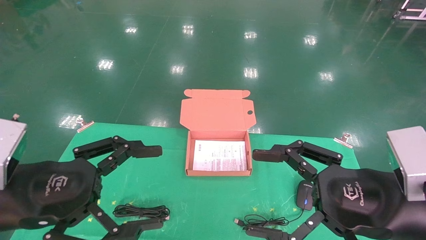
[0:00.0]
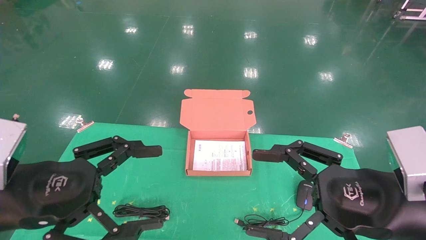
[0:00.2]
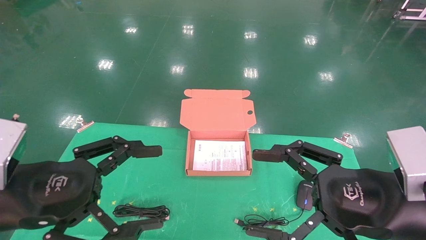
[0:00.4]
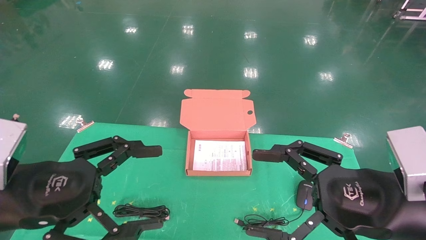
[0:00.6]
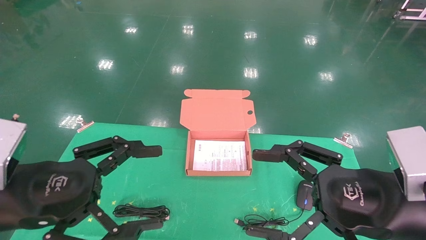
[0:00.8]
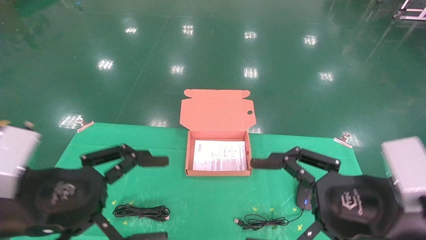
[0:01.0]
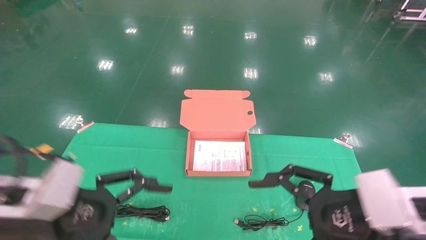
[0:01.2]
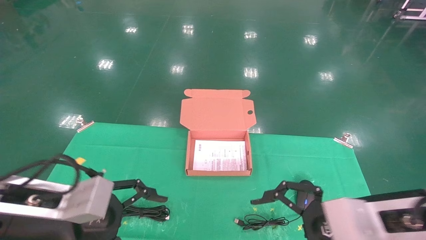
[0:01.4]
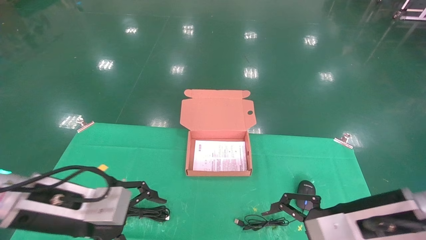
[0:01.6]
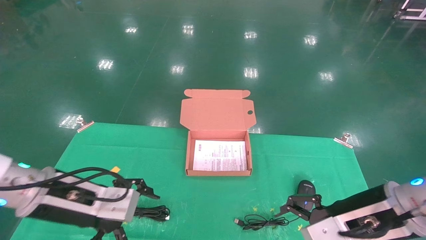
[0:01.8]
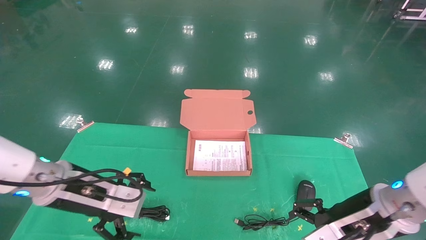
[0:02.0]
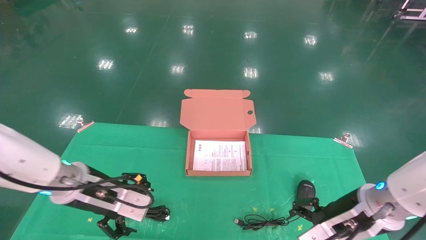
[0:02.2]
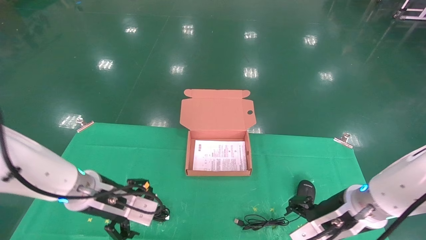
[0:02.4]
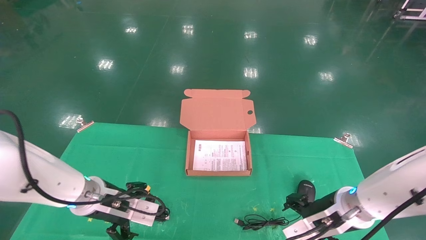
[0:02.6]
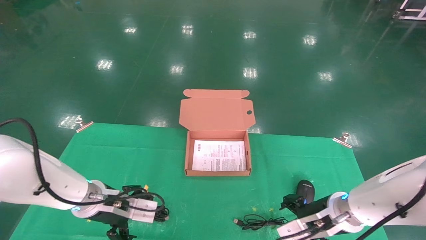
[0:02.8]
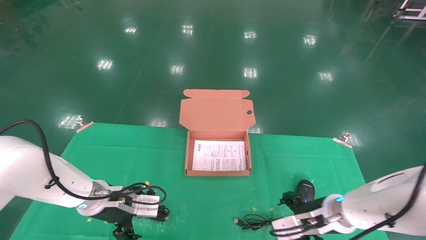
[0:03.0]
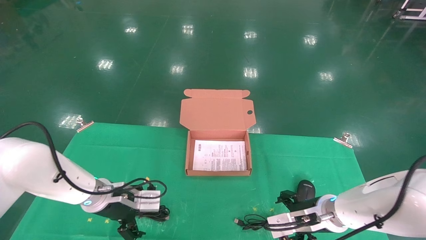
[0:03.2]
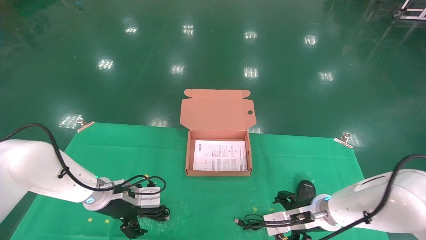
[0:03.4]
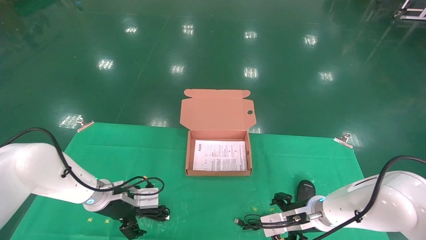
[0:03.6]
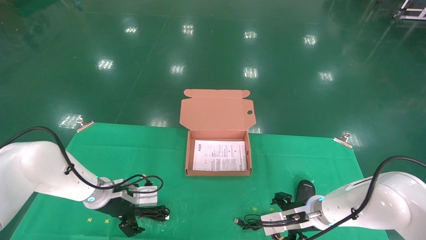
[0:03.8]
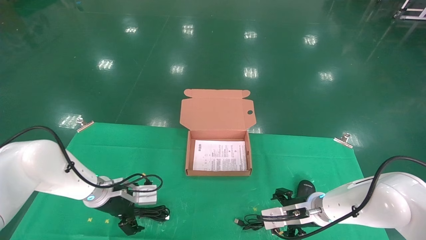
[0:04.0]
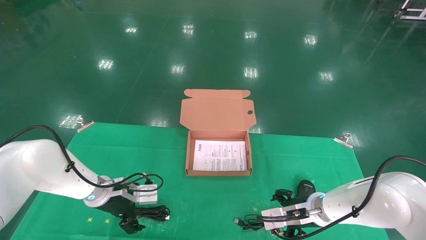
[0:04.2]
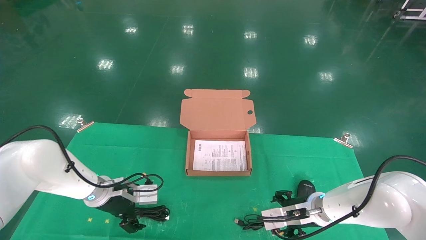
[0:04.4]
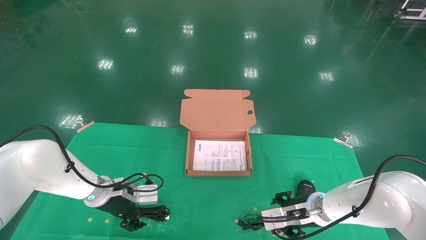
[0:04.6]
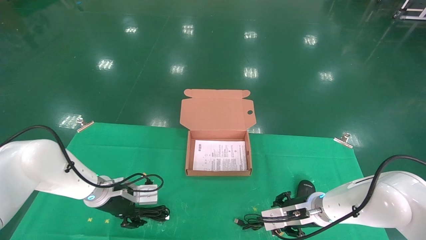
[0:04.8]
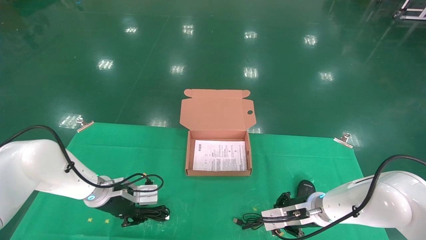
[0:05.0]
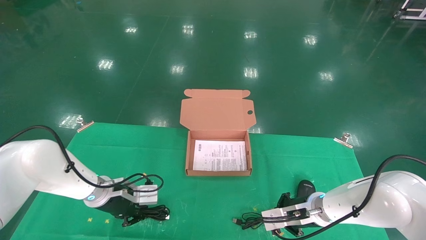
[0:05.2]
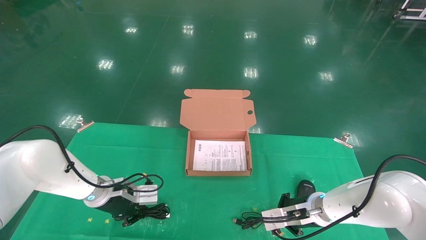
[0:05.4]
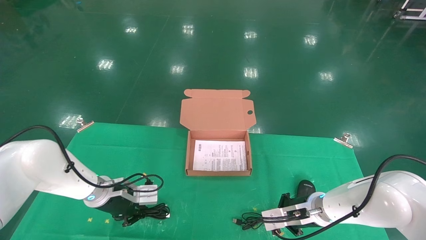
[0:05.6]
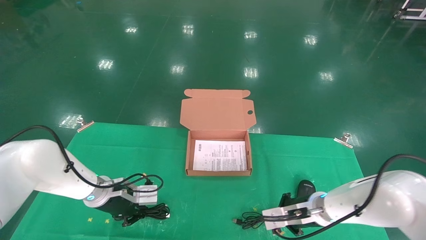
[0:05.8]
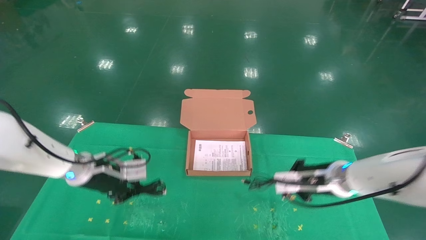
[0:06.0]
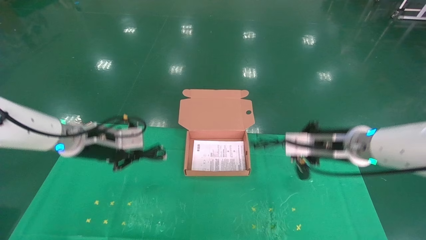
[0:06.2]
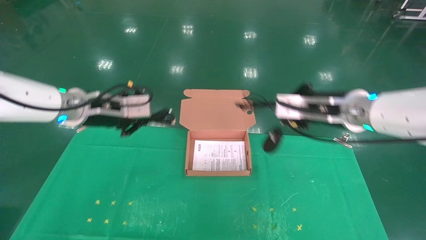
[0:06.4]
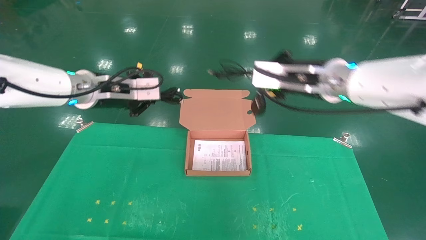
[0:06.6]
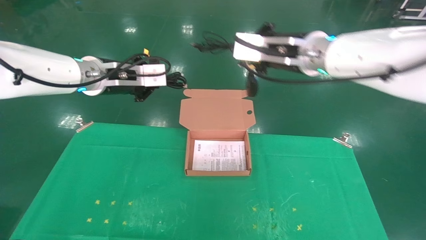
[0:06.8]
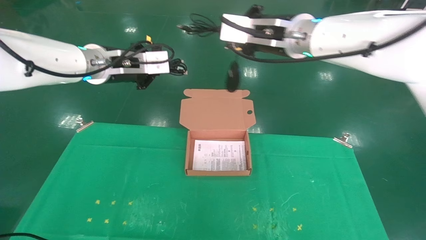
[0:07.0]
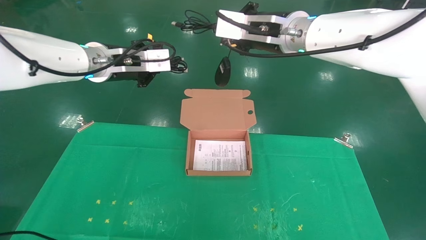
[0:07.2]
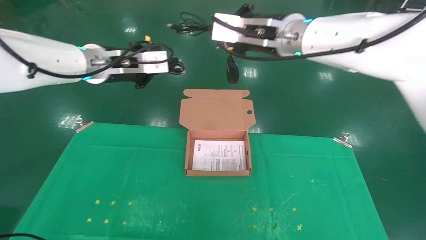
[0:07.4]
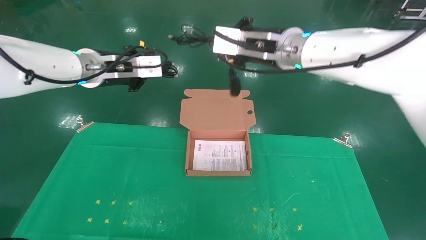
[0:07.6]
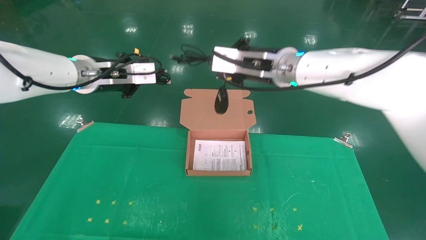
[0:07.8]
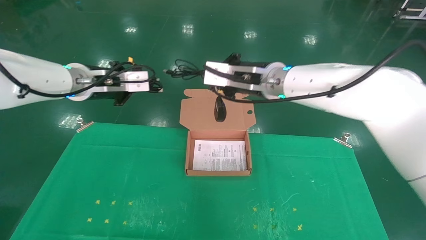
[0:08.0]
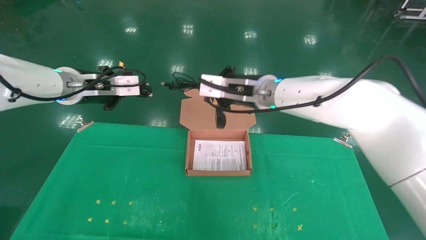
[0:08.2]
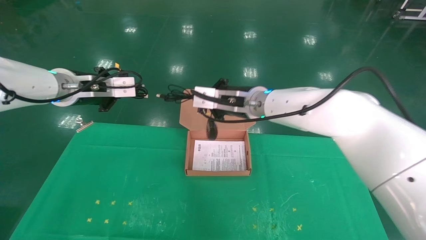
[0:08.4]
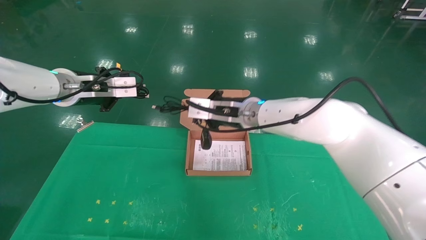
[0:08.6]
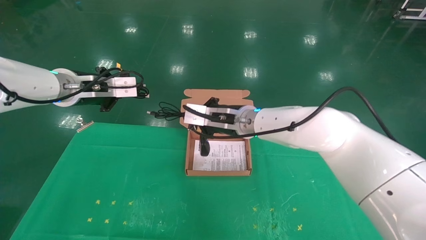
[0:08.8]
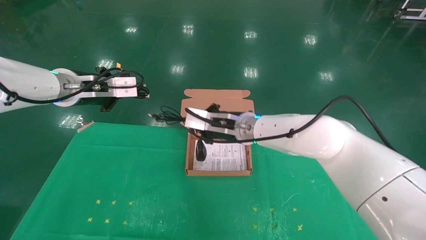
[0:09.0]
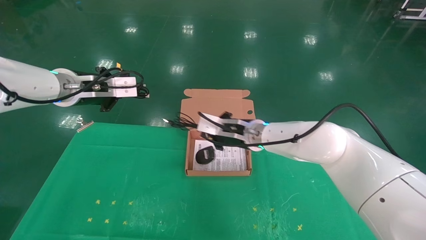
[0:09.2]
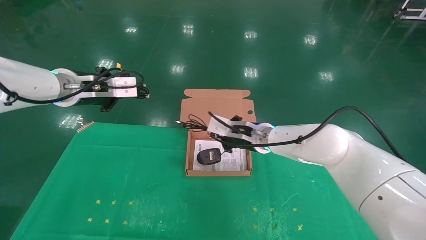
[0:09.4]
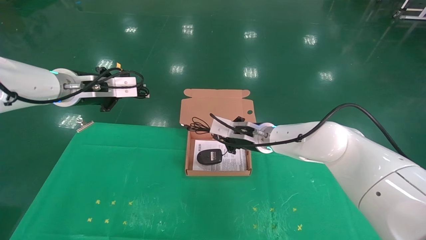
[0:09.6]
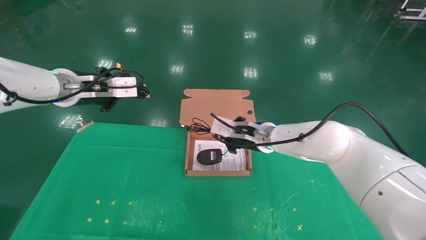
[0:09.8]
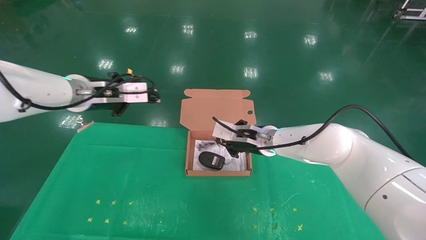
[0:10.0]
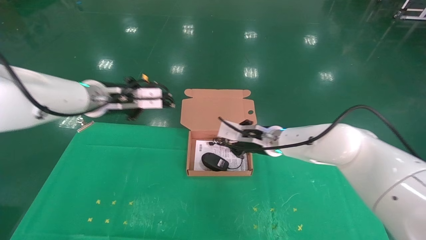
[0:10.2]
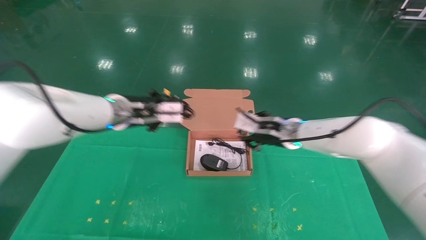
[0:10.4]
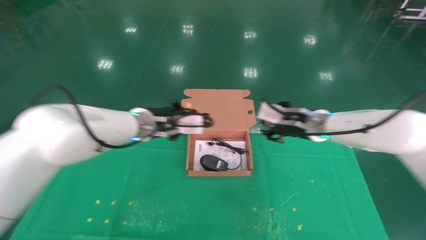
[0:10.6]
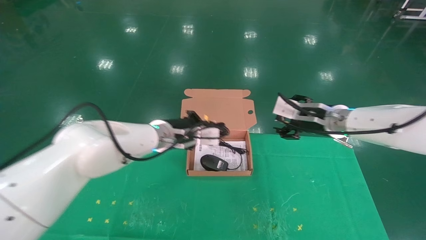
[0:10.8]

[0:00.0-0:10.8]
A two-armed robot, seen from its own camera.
Task of the whole recording: grasp data cable left put into box grasp mouse right put into box.
Step, 0:01.0 to 0:05.4: Grab and pick up both the mouse and power cord from the accessory packaging area at the same time.
0:00.0 to 0:01.6: The left gripper is displaced forward by about 5 cm. The right gripper changes place by about 5 cm.
0:01.6 to 0:03.0: Both grippers move forward and downward, approximately 15 cm.
0:03.0 to 0:04.6: The right gripper shifts by approximately 5 cm. The left gripper changes place by some 5 cm.
0:04.6 to 0:06.2: The two grippers go about 15 cm upward. The right gripper closes its fingers; the left gripper closes up.
0:06.2 to 0:07.8: The right gripper goes roughly 20 cm to the left and upward. The left gripper is displaced upward by about 10 cm.
0:07.8 to 0:09.2: The right gripper moves downward, approximately 15 cm.
0:09.2 to 0:10.8: The right gripper travels to the right by approximately 15 cm, and opens its fingers. The left gripper heads to the right and downward, covering approximately 20 cm.

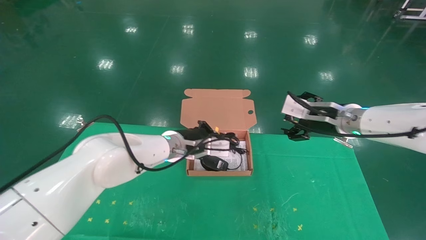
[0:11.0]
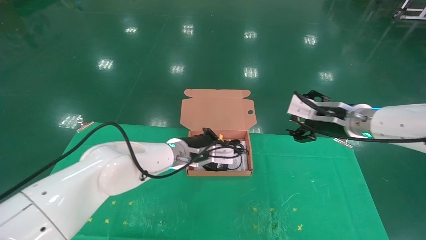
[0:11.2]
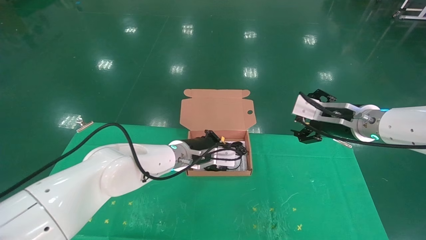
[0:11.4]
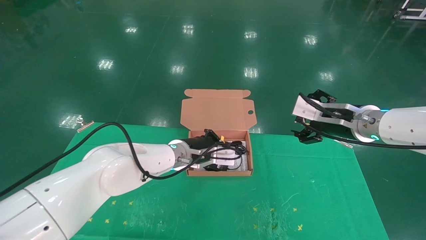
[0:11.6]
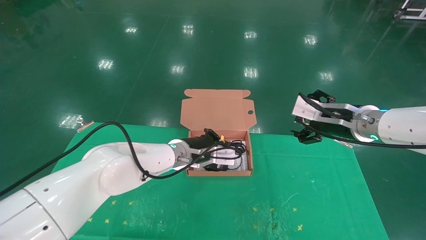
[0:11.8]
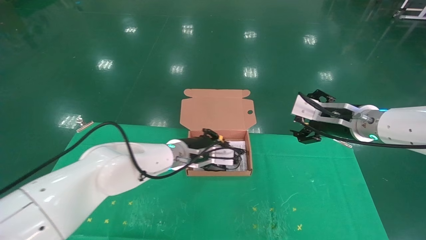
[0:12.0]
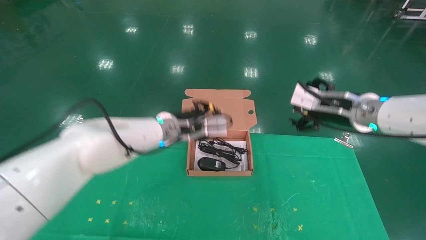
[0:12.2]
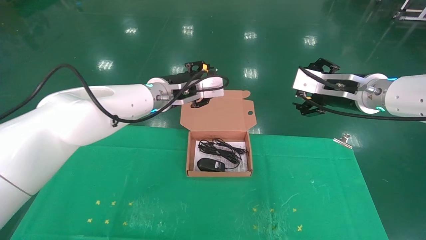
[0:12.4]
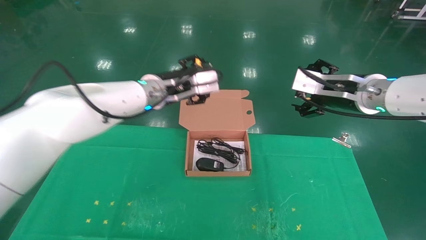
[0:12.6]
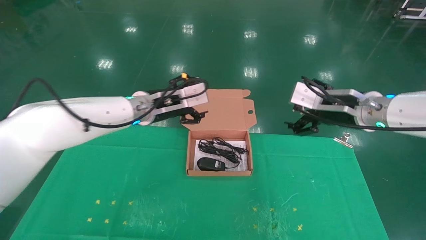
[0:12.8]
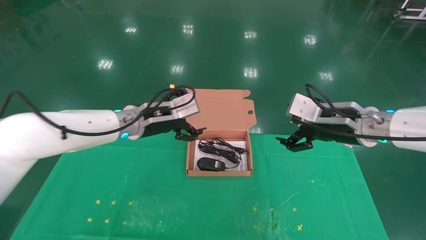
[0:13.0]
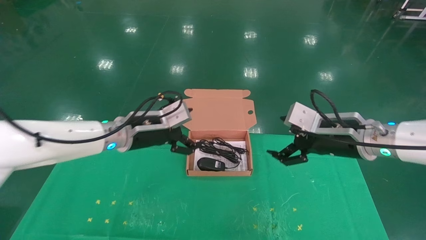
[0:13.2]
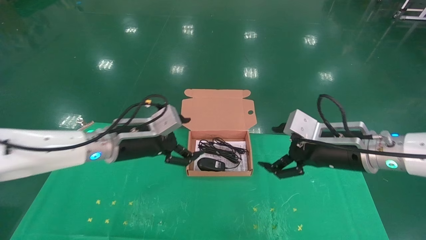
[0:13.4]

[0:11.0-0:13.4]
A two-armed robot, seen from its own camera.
Task of the whole recording: grasp data cable left put into box grasp mouse right put into box.
0:11.0 to 0:12.2: The left gripper shifts roughly 5 cm upward.
0:12.2 to 0:13.4: The left gripper goes about 10 cm to the left and backward, and opens. The right gripper moves downward and backward, approximately 10 cm.

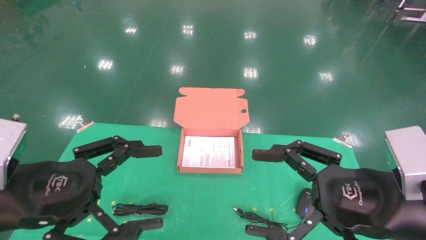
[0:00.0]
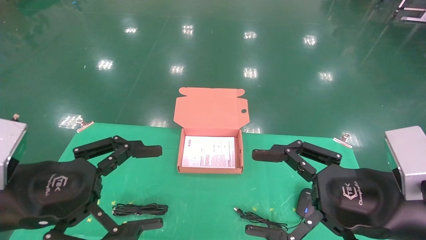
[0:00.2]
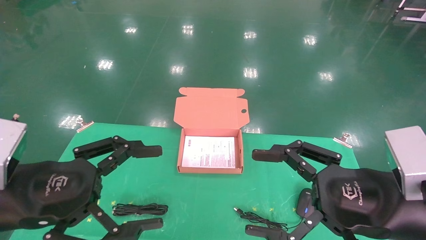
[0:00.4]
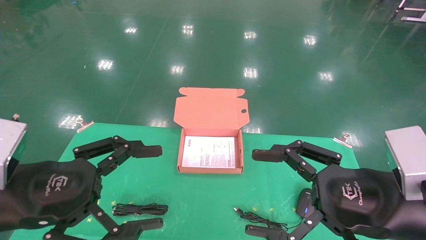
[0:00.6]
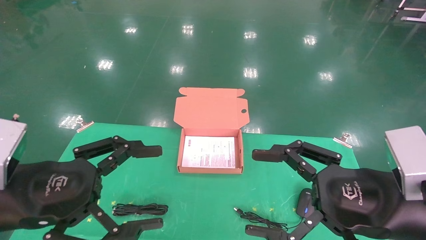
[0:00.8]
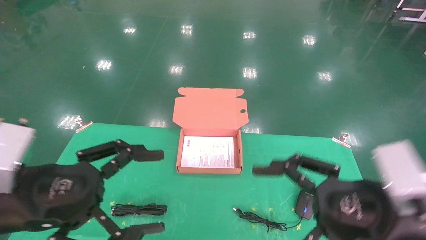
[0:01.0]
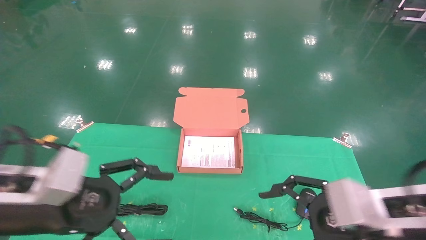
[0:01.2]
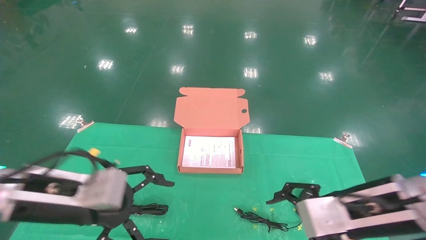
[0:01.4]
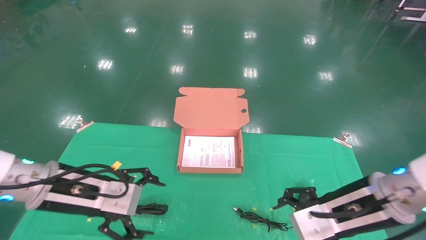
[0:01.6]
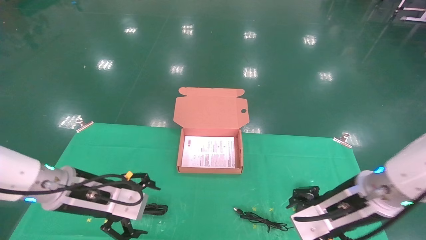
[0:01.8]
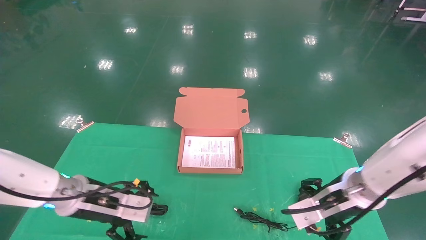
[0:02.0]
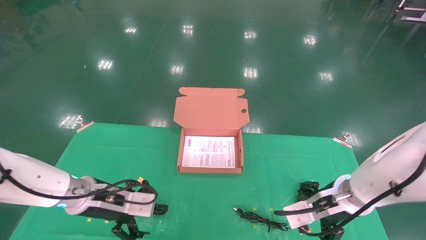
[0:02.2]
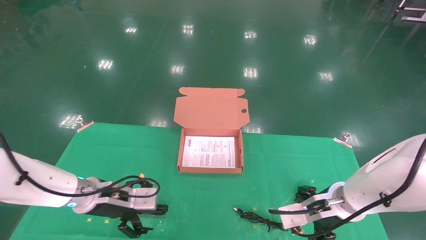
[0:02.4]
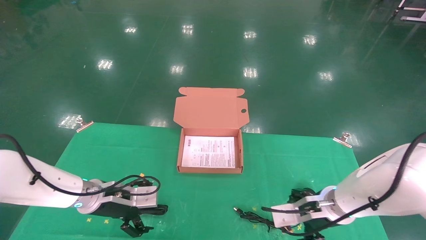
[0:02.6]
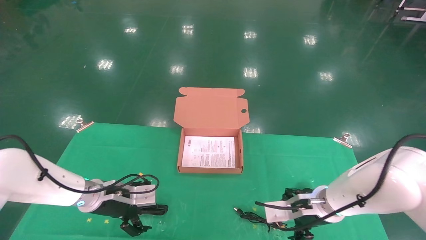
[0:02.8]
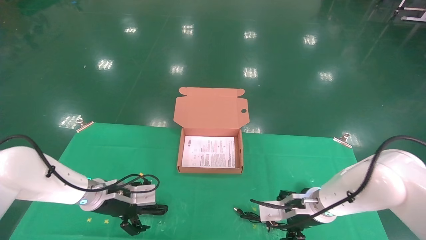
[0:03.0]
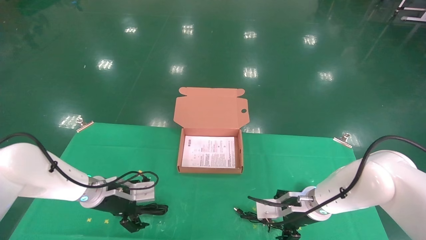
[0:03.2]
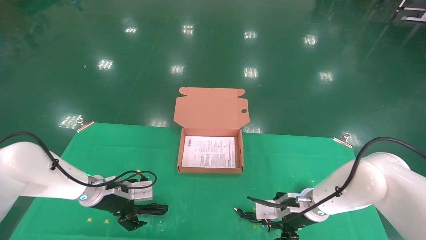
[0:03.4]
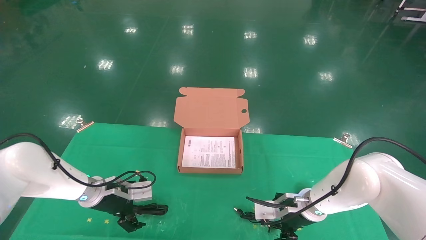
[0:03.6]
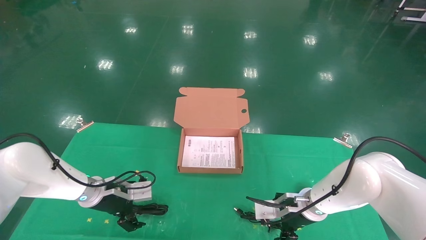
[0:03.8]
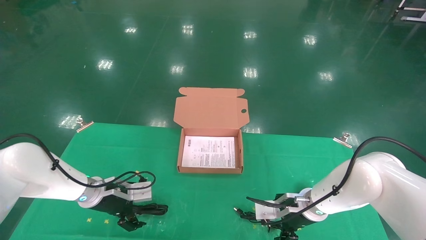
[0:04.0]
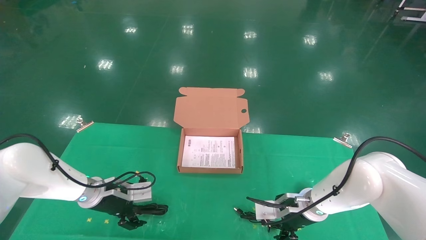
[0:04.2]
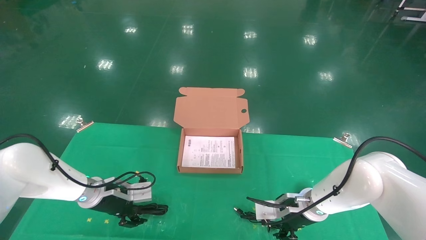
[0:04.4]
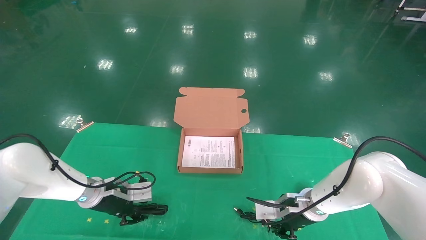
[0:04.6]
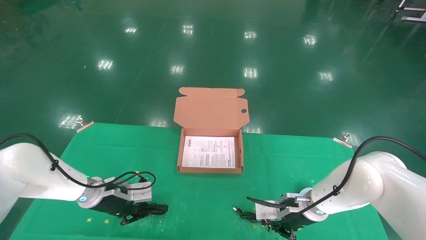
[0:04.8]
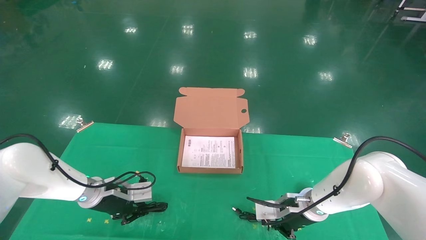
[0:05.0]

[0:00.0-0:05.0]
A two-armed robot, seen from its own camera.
Task of the whole recording: grasp data cable left put into box grasp mouse right put into box.
0:00.0 to 0:01.6: Both grippers travel together forward, roughly 10 cm.
0:01.6 to 0:03.4: The grippers both shift forward and downward by approximately 20 cm.
0:03.4 to 0:05.0: The right gripper closes up. The left gripper closes its fingers.
